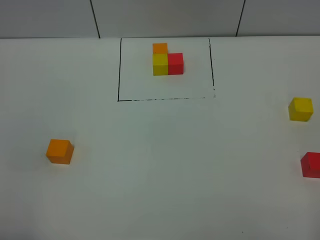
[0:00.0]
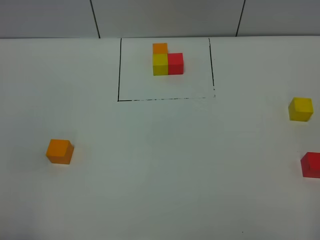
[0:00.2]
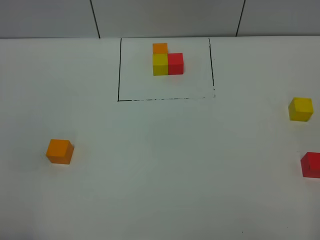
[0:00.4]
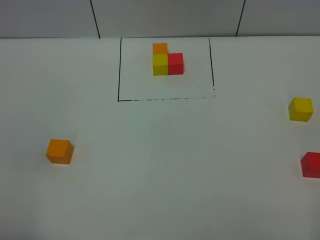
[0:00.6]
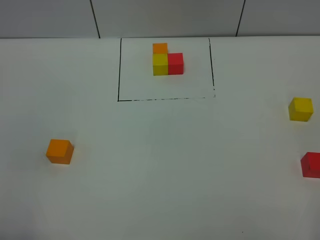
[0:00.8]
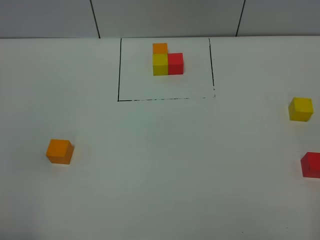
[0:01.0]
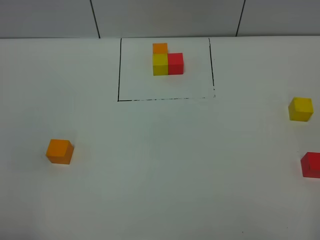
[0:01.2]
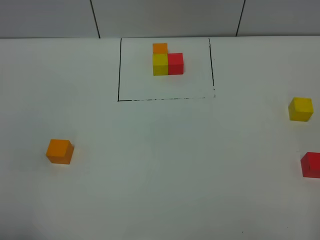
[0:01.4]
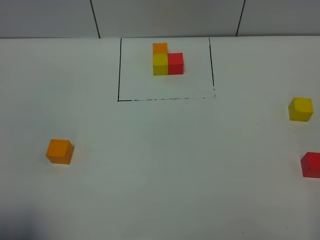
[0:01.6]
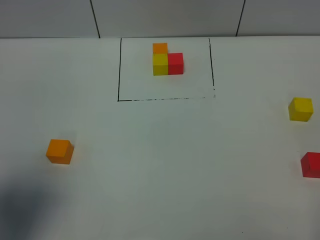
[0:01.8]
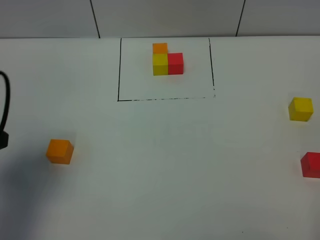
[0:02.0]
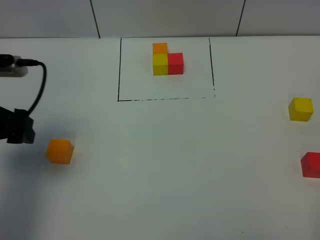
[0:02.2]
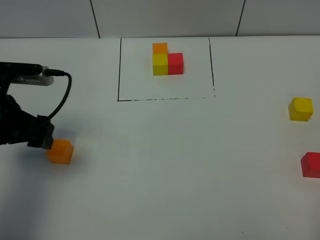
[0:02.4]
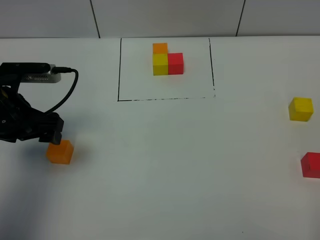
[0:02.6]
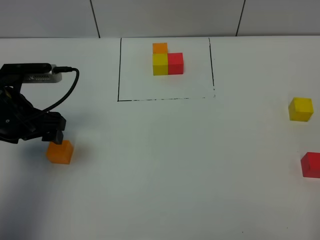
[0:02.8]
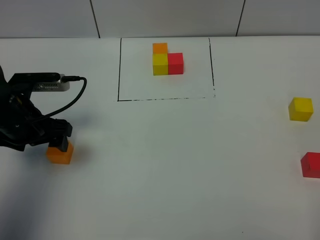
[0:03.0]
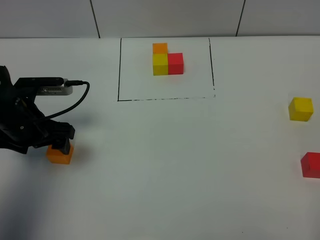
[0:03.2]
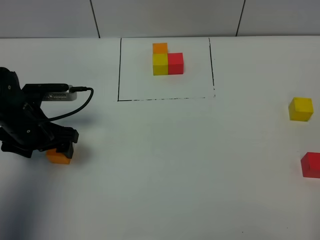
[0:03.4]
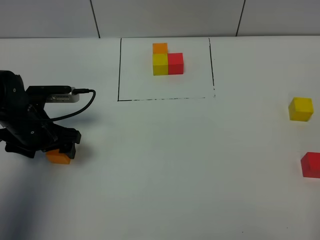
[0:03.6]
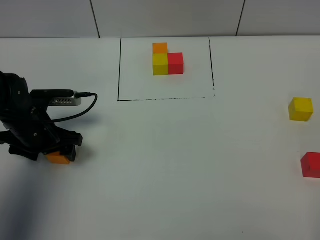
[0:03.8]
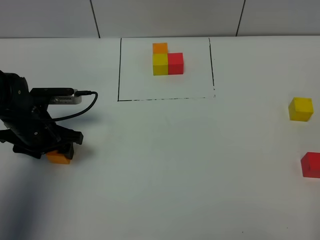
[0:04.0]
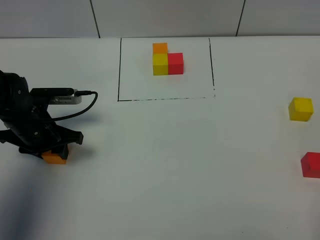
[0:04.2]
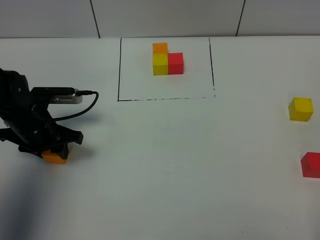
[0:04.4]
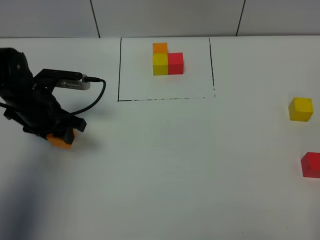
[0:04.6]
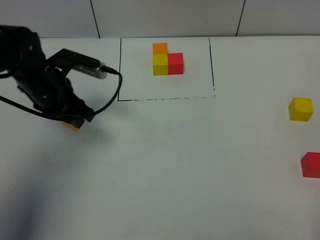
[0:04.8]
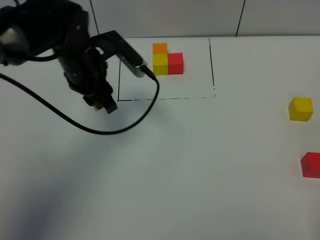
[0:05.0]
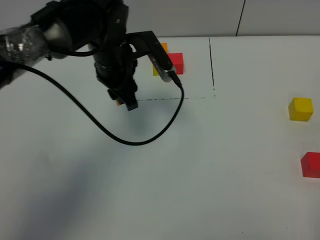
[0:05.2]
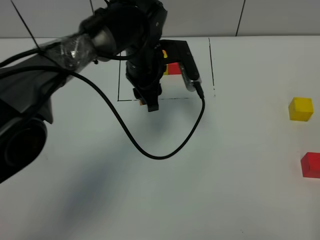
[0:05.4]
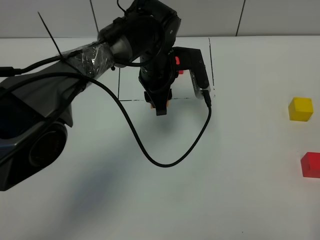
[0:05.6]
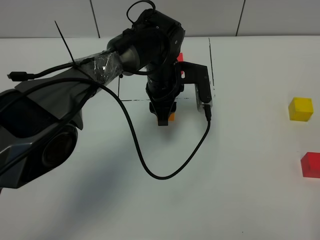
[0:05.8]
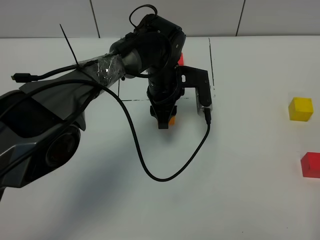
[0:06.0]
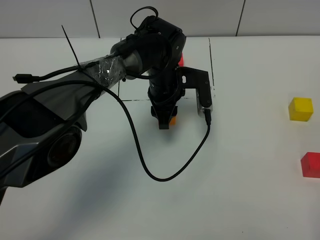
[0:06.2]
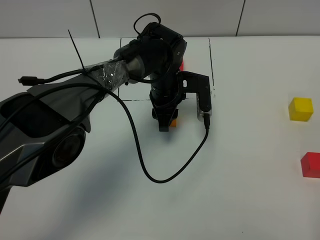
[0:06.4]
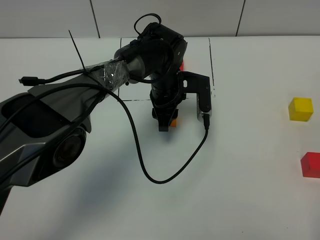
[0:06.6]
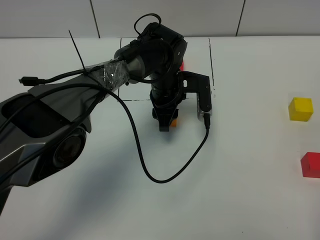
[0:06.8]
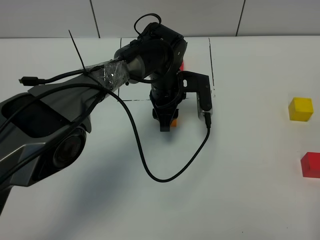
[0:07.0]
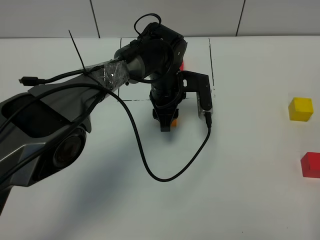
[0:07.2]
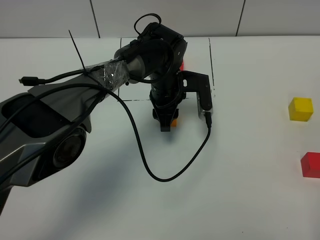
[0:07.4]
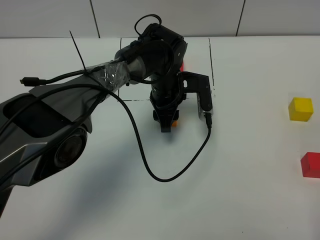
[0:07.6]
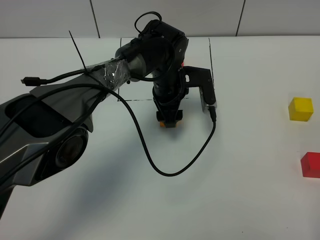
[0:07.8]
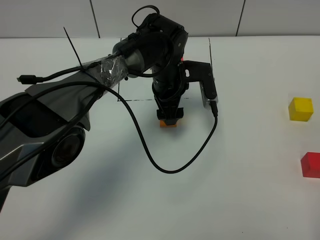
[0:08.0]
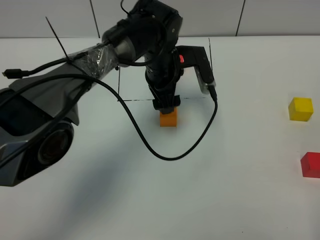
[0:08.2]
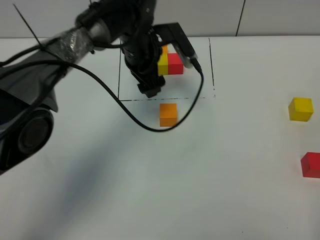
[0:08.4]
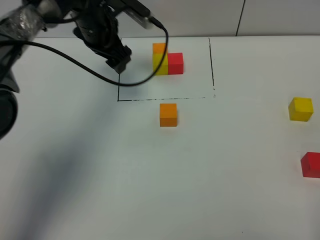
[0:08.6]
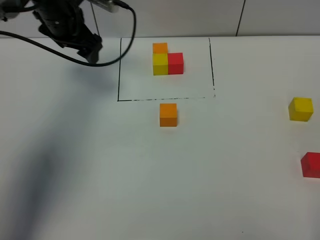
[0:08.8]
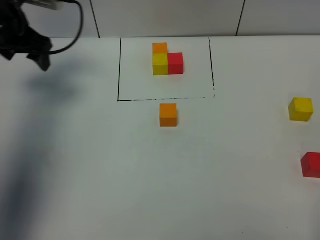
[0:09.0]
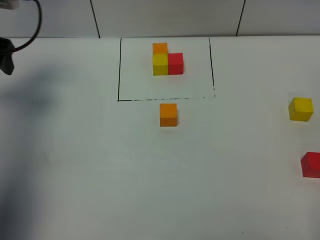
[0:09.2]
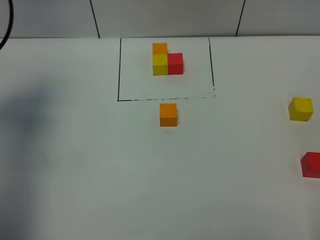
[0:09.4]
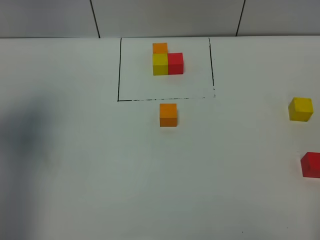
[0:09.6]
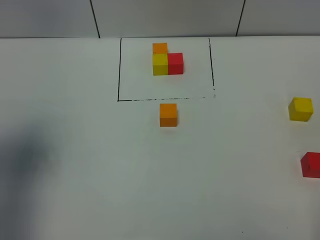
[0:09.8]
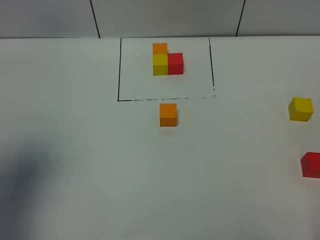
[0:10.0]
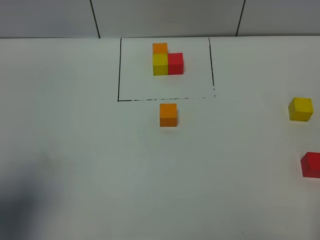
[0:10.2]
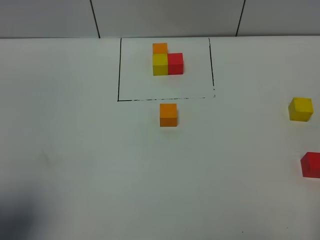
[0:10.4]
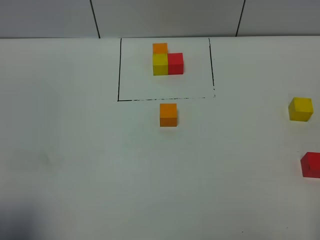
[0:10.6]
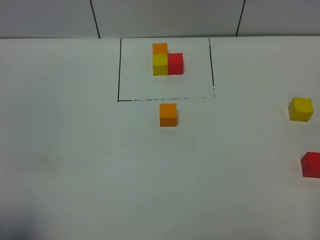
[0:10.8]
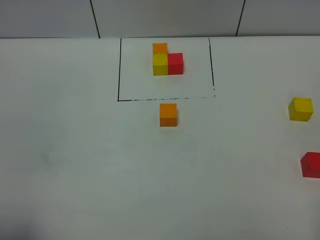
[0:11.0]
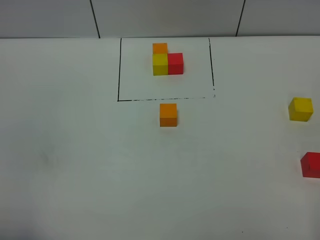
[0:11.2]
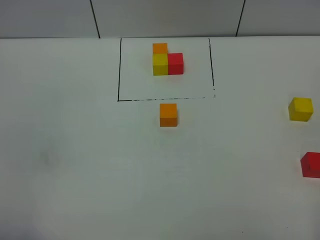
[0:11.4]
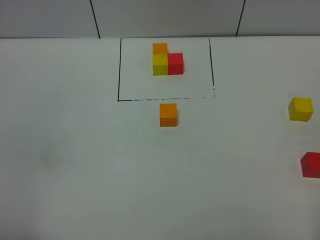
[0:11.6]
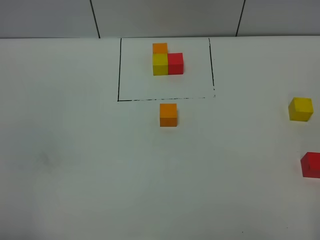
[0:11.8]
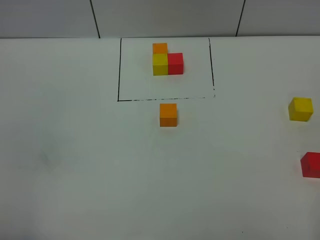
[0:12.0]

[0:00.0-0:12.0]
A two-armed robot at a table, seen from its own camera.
Task of the whole recording: According to the building block template in front, assemble the scattered blocks together.
Step, 0:00.0 to 0:07.6: Put the orange build block in the center of the table.
0:00.0 to 0:01.6: The left gripper ends up approximately 5 cm from where it was.
0:01.6 to 0:03.0: The left gripper moves forward and downward, about 25 cm.
0:03.0 to 0:04.4: The left gripper travels downward by roughly 5 cm, and closes its fingers.
0:04.4 to 0:06.0: The left gripper heads to the right, covering roughly 25 cm.
0:06.0 to 0:07.6: The grippers make only small movements.
0:07.6 to 0:09.0: The left gripper moves to the left and upward, some 35 cm, and opens its fingers.
0:09.0 to 0:10.4: The left gripper goes some 35 cm backward.
0:10.4 to 0:12.0: The left gripper shifts roughly 10 cm backward and downward.

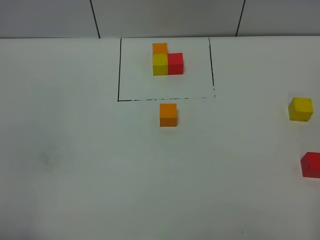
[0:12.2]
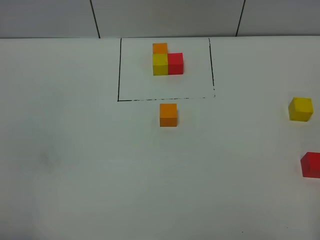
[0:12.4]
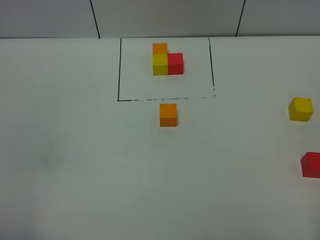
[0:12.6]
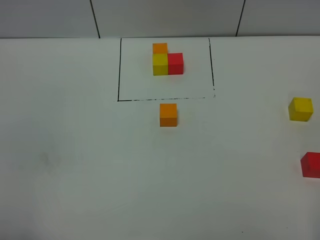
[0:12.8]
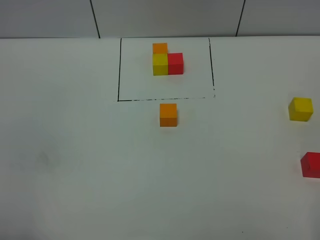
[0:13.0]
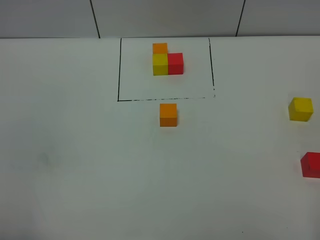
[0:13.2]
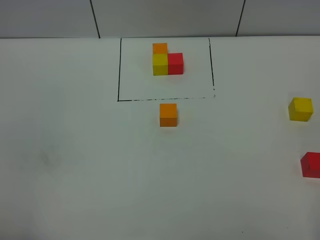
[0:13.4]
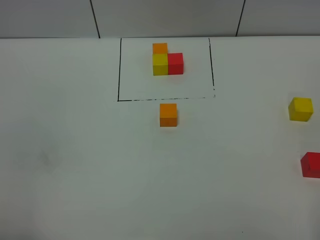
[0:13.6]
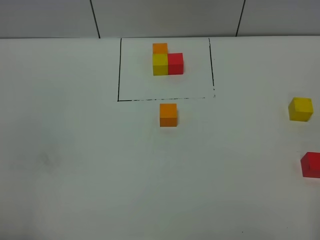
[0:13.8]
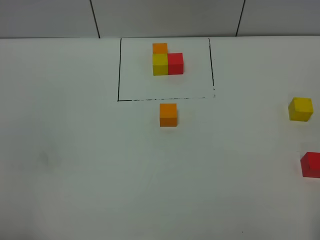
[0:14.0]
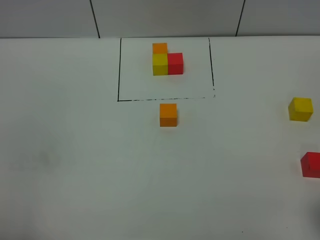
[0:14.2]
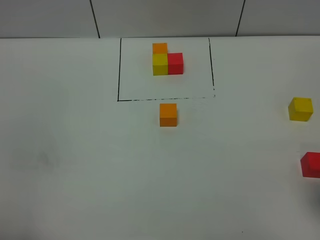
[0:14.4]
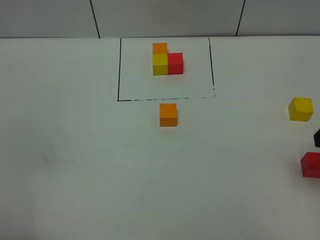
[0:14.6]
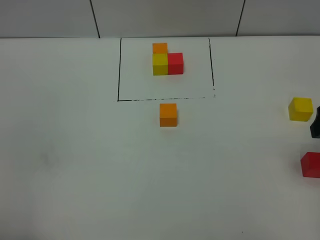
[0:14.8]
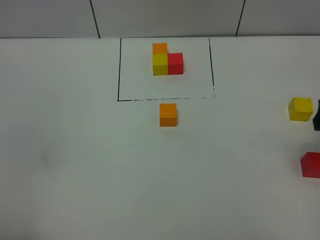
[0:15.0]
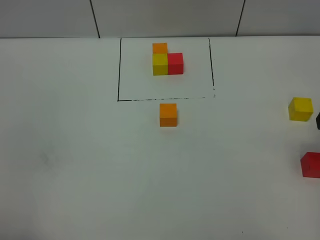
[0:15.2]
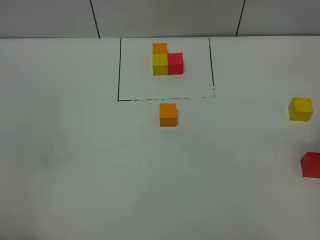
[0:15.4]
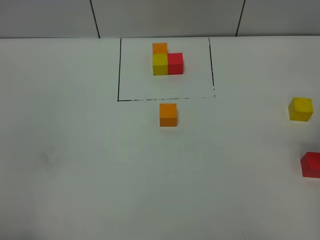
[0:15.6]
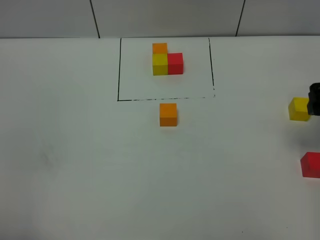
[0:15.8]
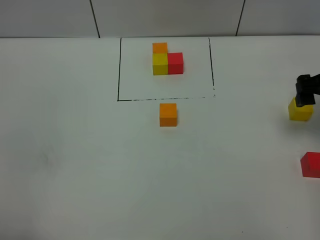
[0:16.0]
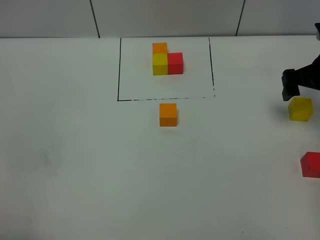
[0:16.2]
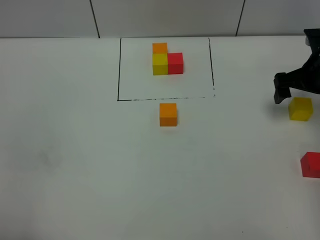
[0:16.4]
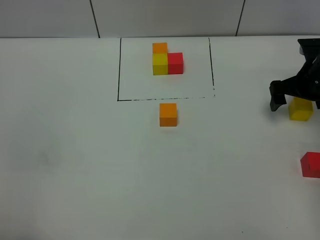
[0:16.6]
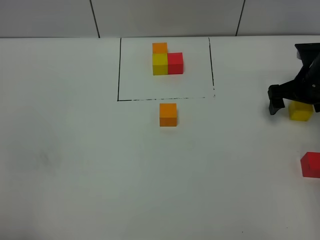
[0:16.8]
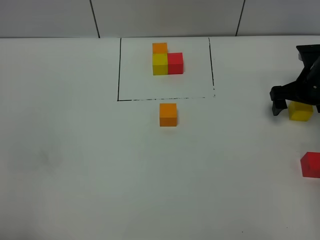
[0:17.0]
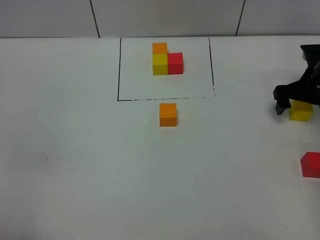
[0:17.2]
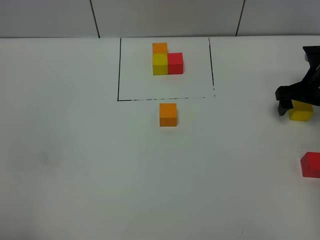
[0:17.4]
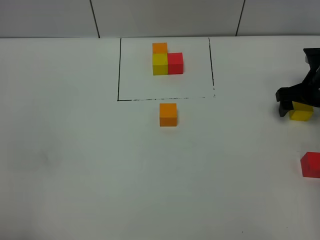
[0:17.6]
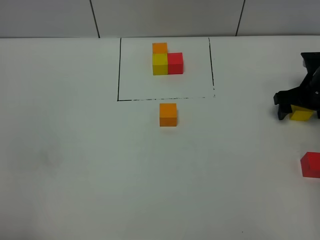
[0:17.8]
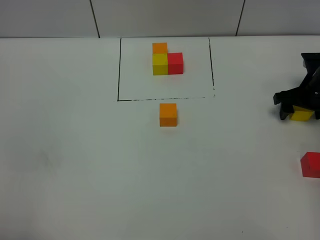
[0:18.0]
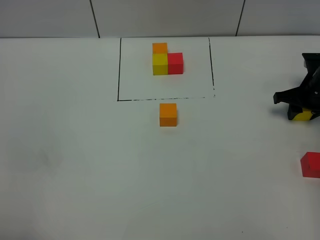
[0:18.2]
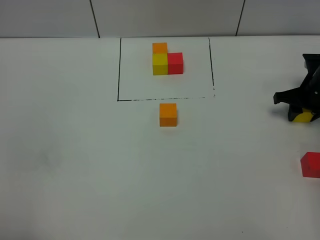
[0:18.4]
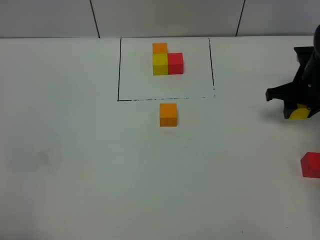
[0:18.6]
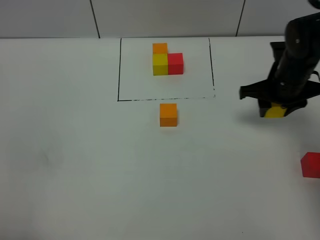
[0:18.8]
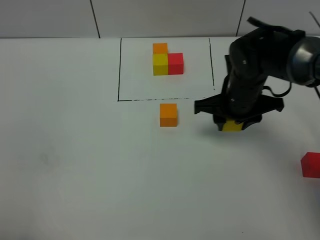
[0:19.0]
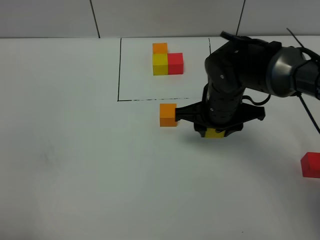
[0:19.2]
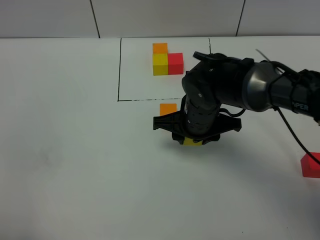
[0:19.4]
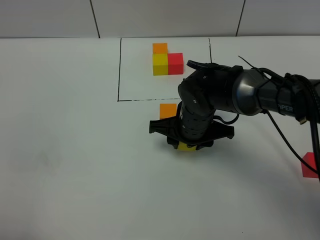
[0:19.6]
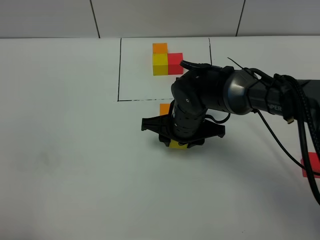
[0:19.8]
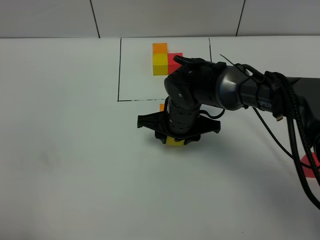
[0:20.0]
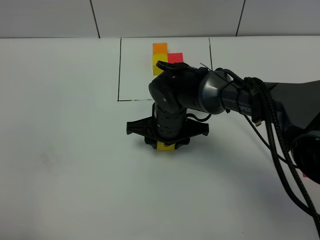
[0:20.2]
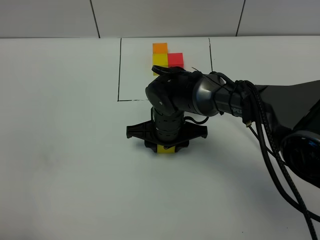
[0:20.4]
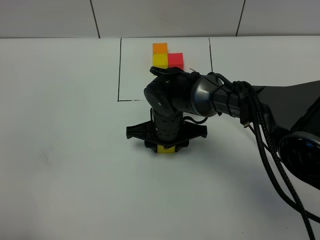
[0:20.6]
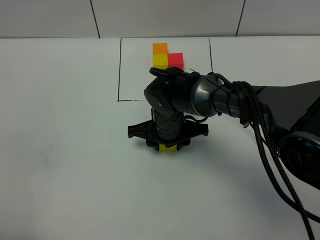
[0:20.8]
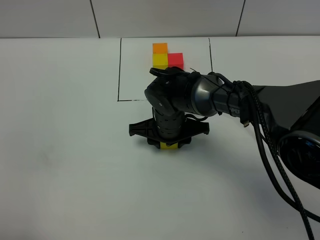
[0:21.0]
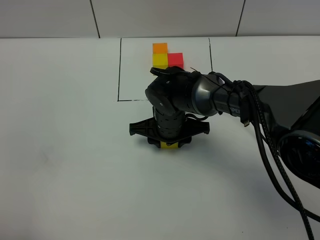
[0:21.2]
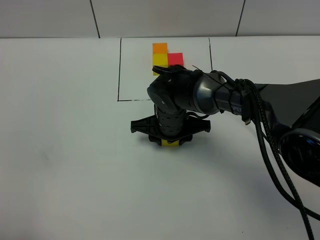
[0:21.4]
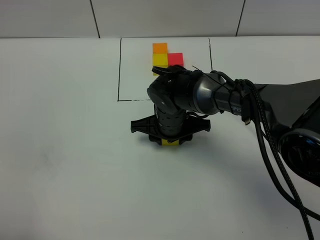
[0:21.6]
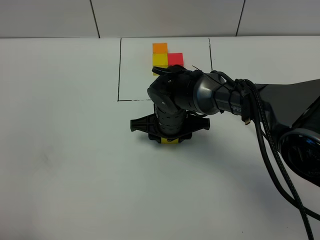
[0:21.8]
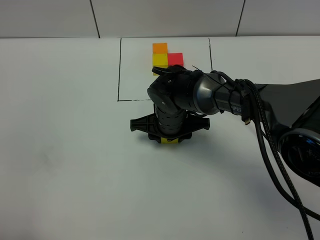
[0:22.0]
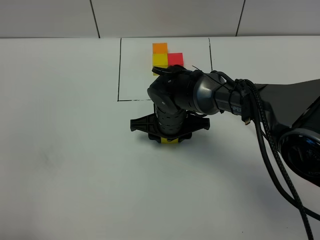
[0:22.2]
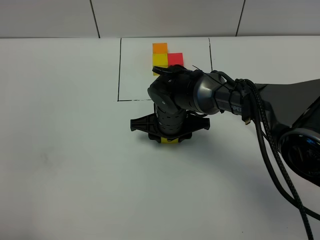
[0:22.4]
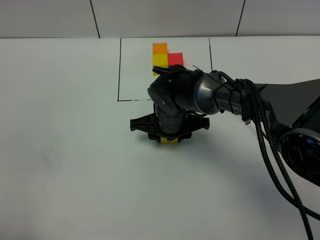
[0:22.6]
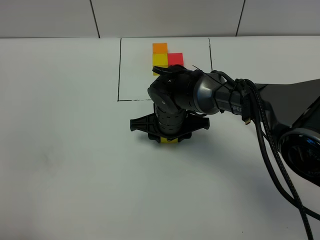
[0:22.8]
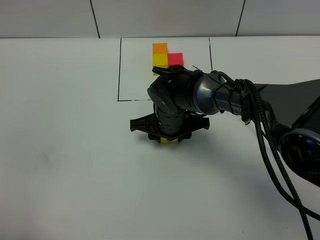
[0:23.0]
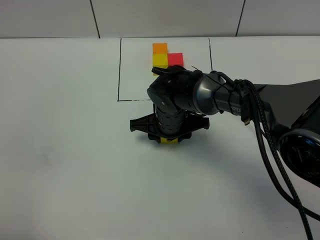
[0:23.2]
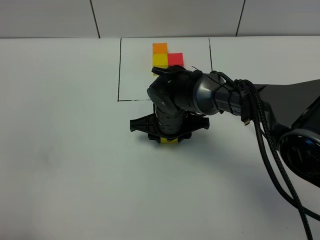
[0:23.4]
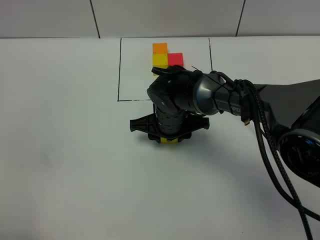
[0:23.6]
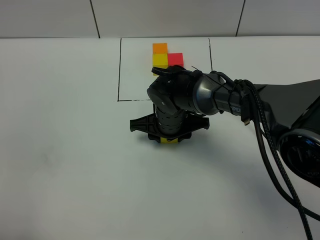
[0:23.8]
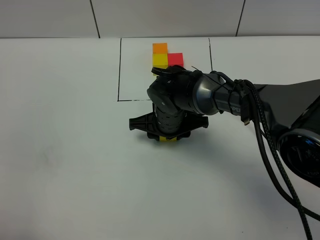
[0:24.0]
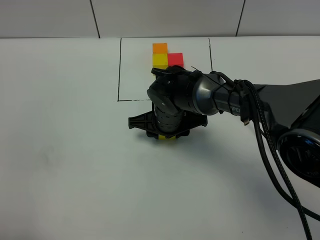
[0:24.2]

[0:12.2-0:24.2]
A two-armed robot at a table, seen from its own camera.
Task of the whole recording: According to the building block template in front, assemble the scattered blocks together.
0:15.2 to 0:16.6: The right gripper travels forward and downward by roughly 20 cm.
0:16.6 to 0:18.2: The right gripper closes its fingers.
0:18.2 to 0:19.8: The right gripper moves to the left, about 30 cm.
0:19.8 to 0:21.2: The grippers stay close to where they were, moving slightly.
0:21.2 to 0:22.6: Both grippers stay put.
0:22.6 to 0:24.2: The two grippers keep their place.
